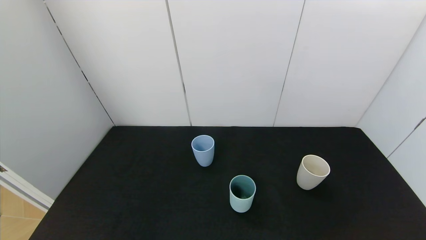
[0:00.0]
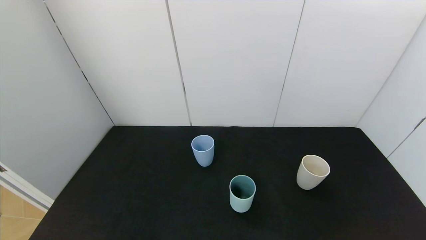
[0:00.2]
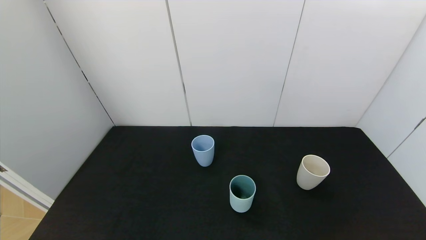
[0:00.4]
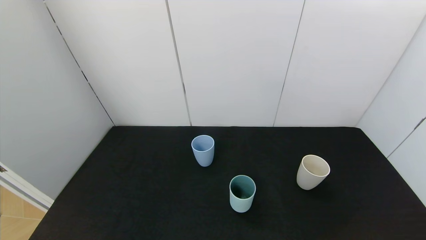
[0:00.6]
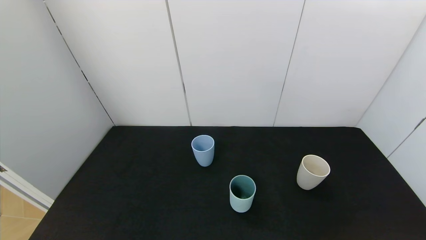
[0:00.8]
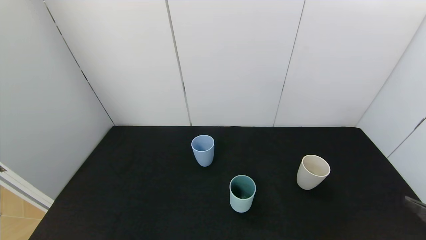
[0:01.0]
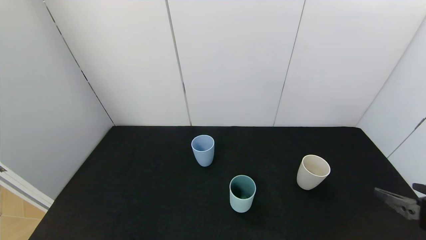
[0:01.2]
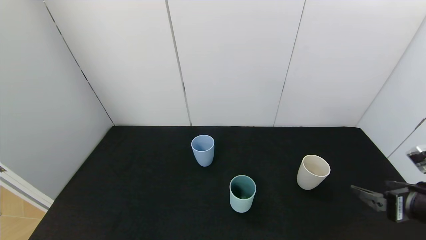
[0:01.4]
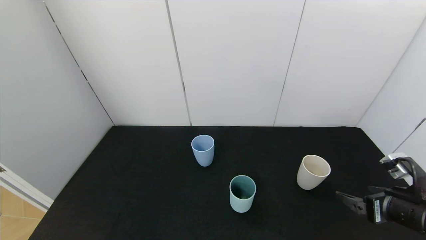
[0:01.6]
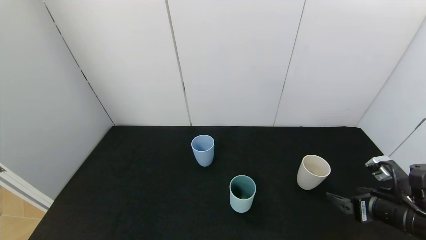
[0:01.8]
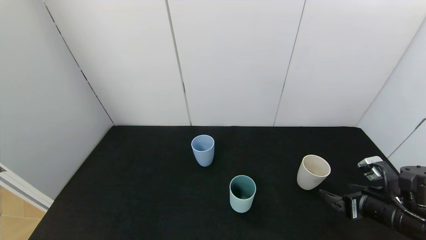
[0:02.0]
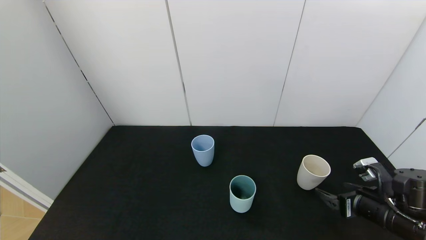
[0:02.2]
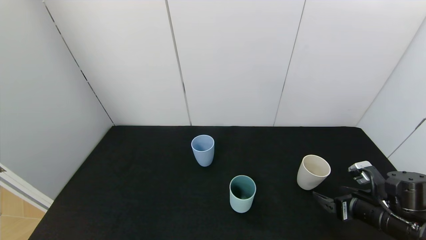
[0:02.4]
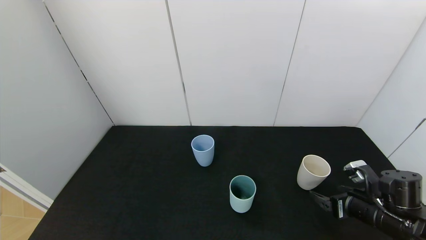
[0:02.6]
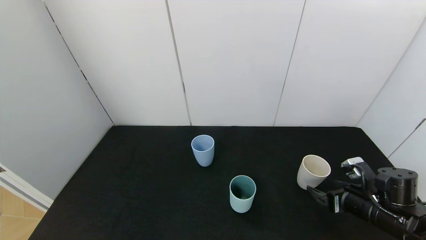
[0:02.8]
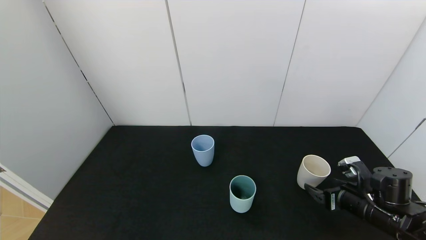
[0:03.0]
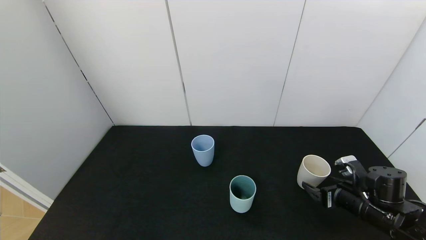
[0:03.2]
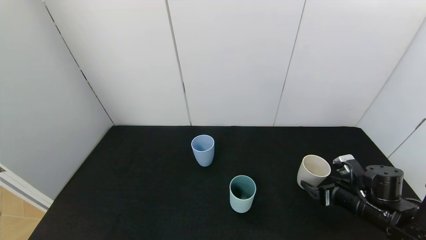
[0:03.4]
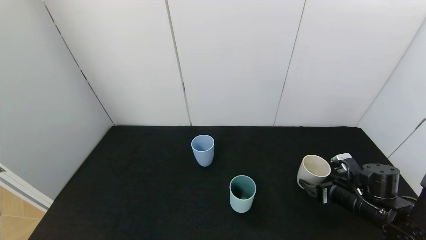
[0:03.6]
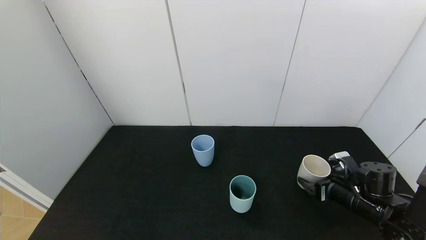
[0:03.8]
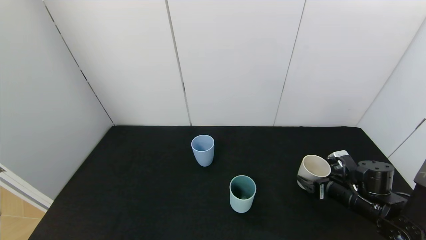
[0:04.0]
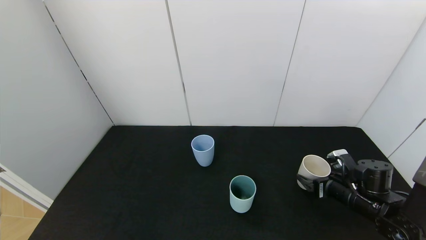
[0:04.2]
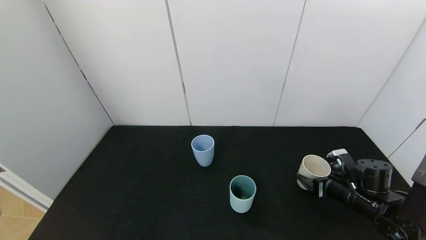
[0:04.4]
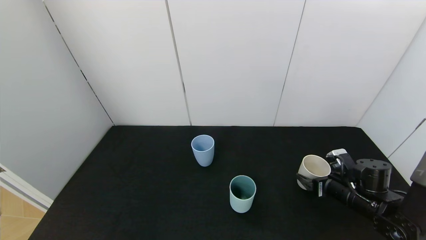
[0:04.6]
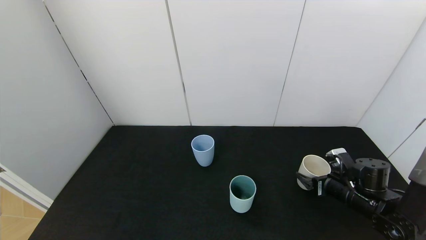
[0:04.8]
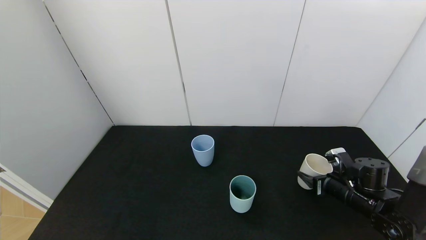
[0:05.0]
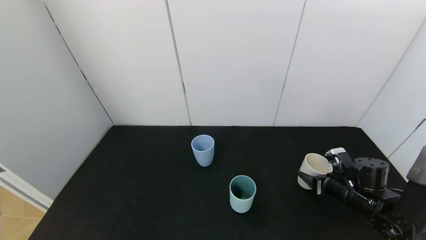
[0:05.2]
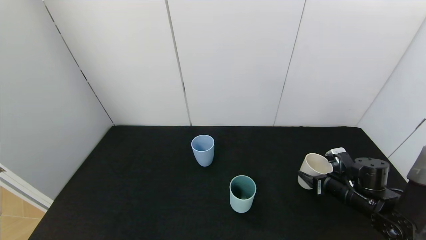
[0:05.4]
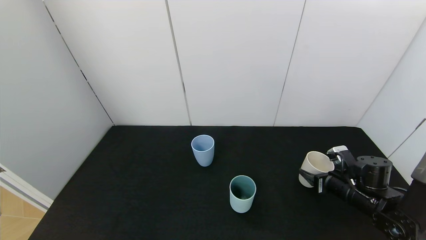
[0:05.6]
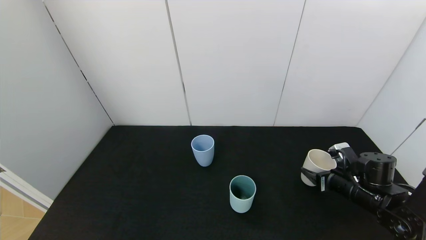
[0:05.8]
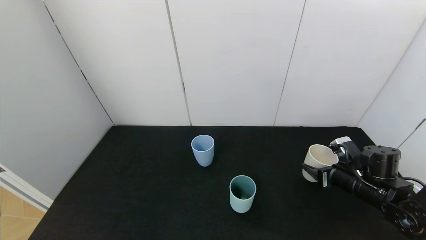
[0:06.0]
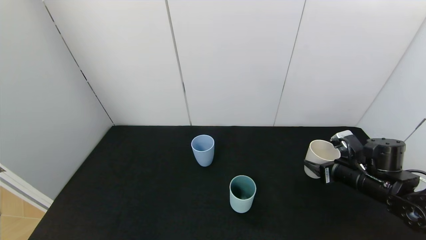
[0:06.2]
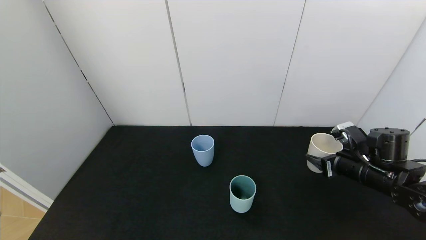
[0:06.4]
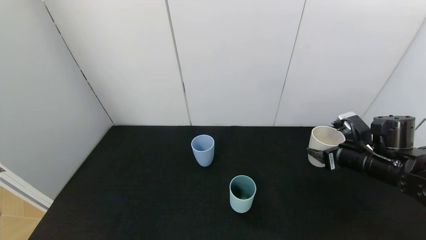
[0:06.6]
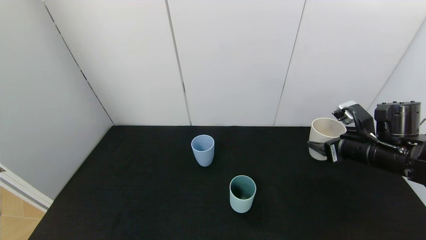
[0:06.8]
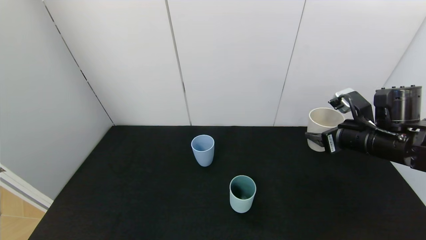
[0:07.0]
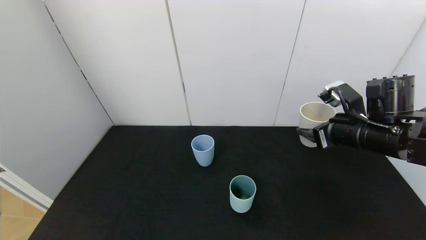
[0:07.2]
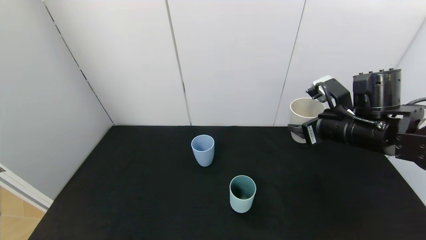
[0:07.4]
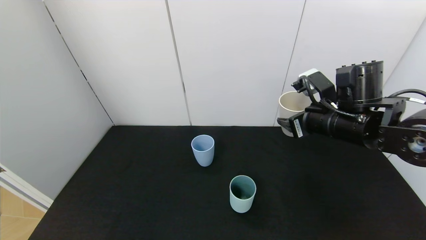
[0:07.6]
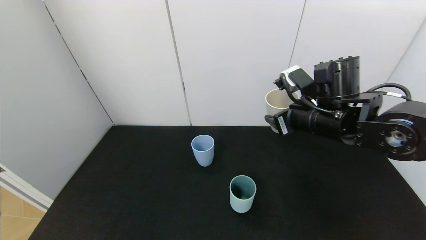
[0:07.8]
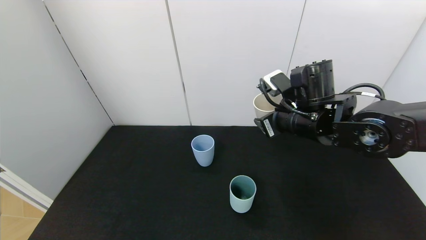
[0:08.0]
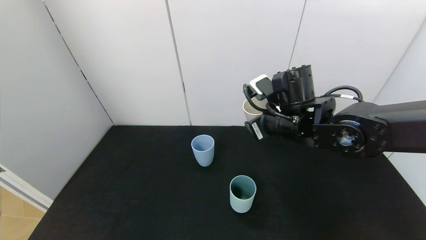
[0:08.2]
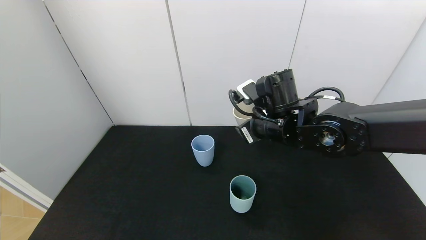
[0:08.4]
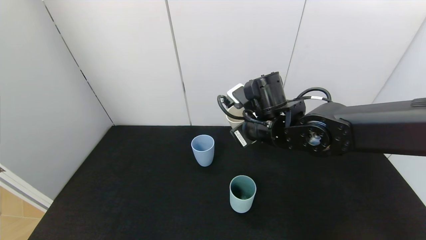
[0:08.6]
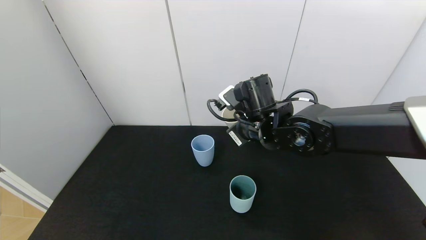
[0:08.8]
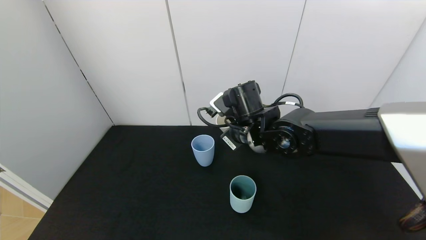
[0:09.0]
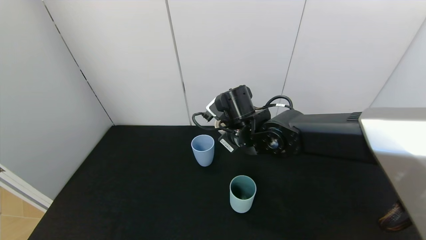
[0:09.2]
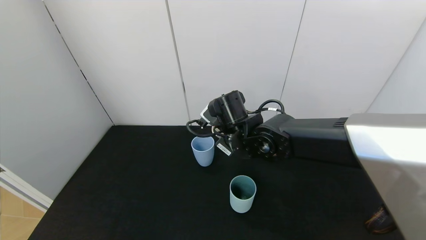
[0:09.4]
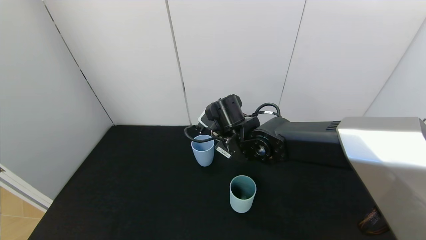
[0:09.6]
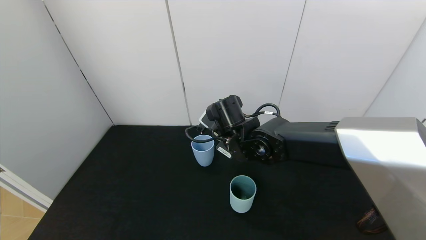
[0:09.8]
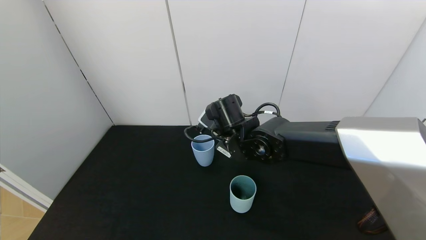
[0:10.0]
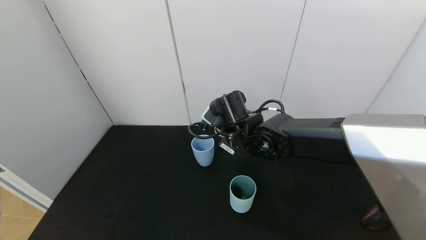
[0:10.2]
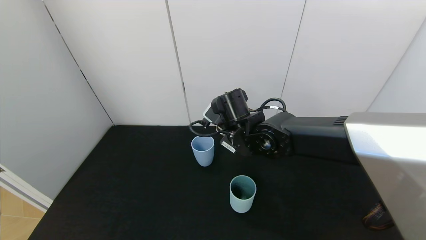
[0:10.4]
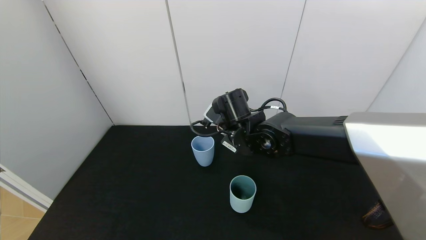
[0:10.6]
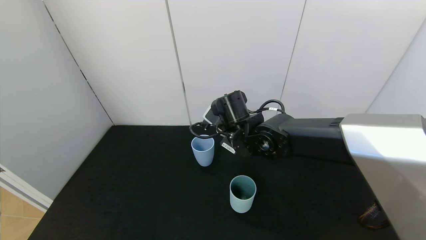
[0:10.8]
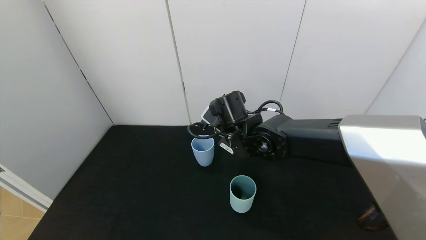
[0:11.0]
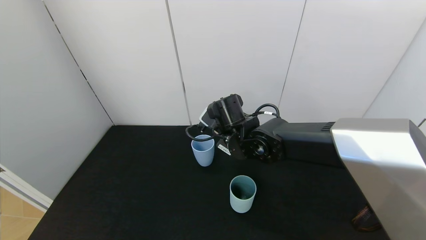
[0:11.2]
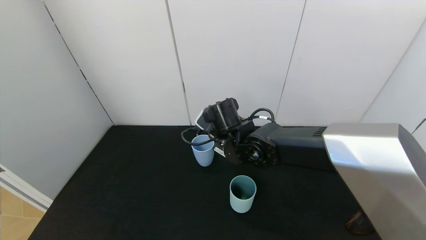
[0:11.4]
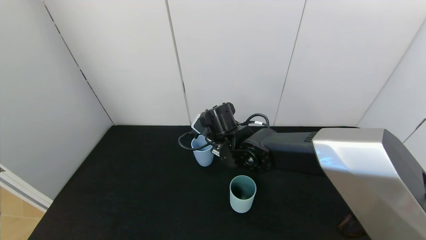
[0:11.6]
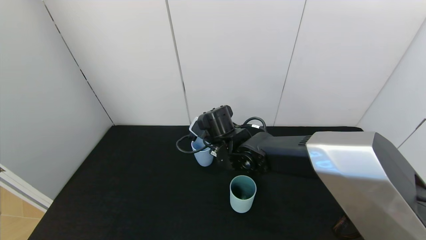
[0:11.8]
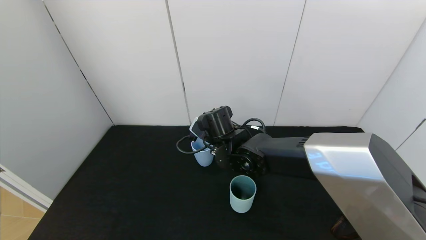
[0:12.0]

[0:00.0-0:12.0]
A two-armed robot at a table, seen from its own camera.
Task of the whole recording: use the gripper to pour the water into the other two cups on black table.
Step, 0:00.0 to 0:05.0: Grasp the white cup with the right gripper.
0:00.0 to 0:01.6: The right gripper shifts about 20 cm forward.
0:01.6 to 0:03.0: The right gripper travels downward and forward by roughly 10 cm.
0:03.0 to 0:04.4: The grippers stay close to where they were, moving slightly.
0:04.4 to 0:06.0: The right gripper closes its fingers.
0:06.0 to 0:07.6: The right gripper moves upward and to the left, some 20 cm.
0:07.6 to 0:09.0: The right gripper shifts some 15 cm to the left.
0:09.0 to 0:10.4: The grippers stay close to where they were, moving slightly.
0:10.4 to 0:12.0: The right gripper ends up some 5 cm from where it was.

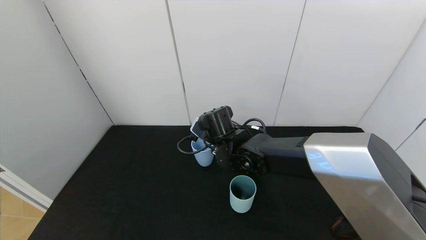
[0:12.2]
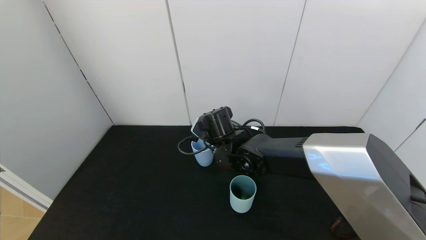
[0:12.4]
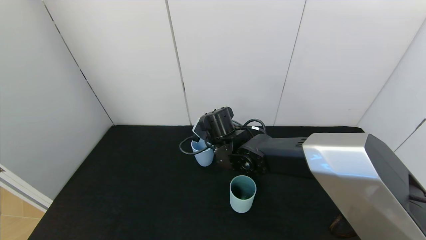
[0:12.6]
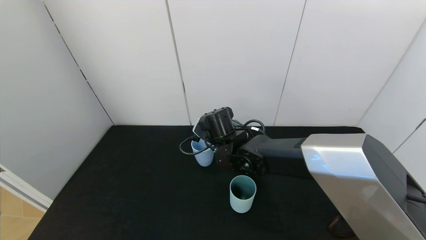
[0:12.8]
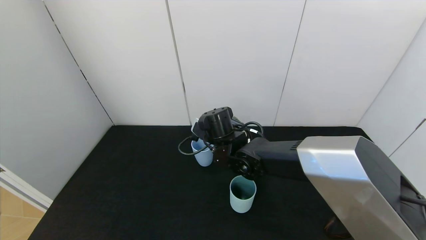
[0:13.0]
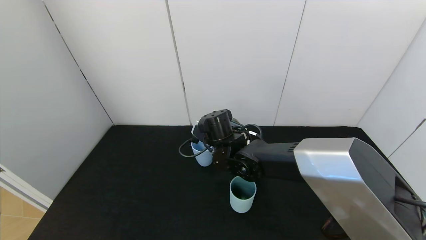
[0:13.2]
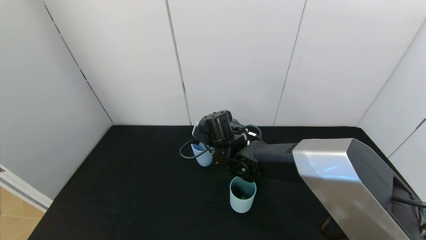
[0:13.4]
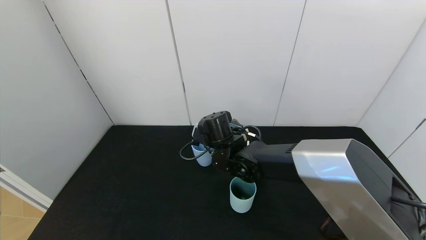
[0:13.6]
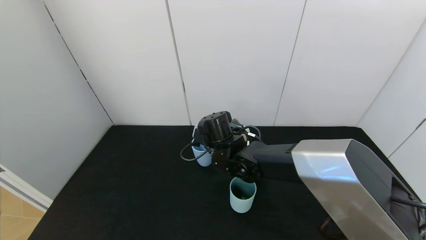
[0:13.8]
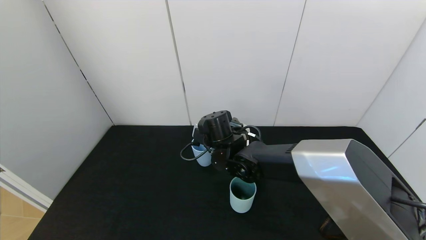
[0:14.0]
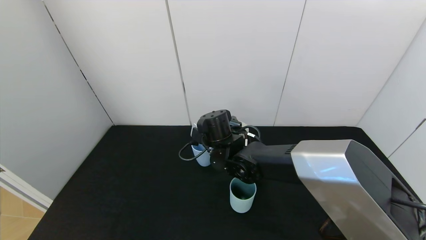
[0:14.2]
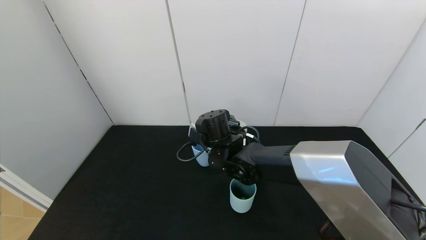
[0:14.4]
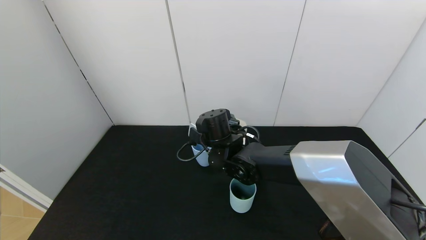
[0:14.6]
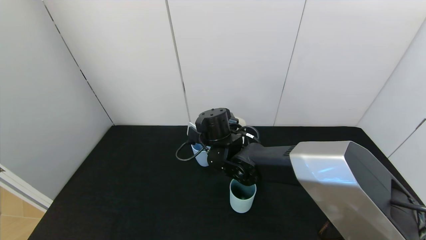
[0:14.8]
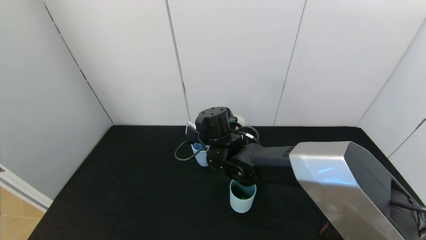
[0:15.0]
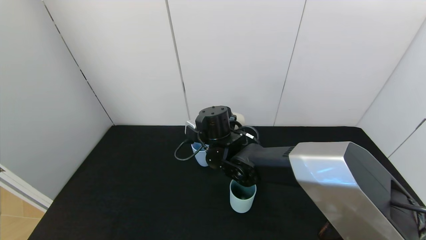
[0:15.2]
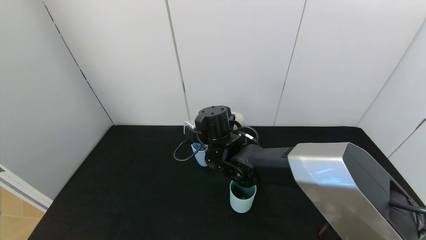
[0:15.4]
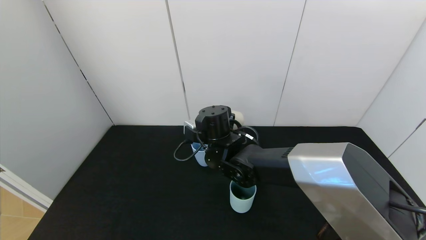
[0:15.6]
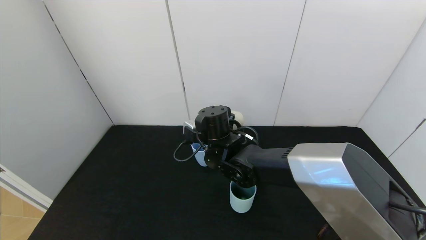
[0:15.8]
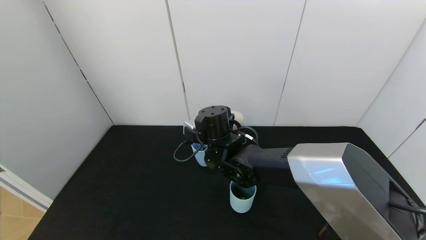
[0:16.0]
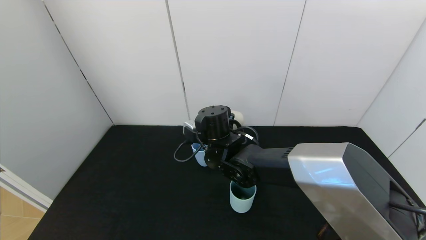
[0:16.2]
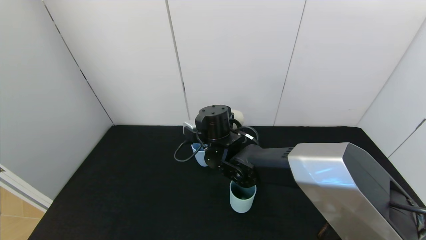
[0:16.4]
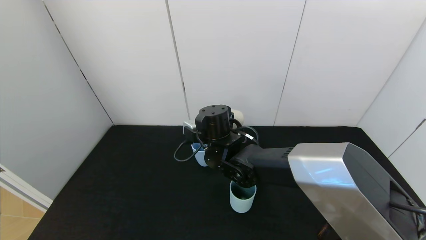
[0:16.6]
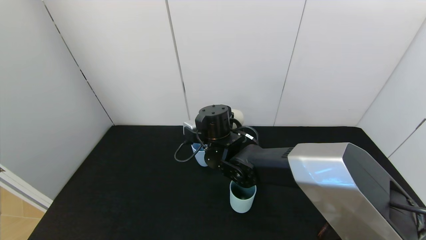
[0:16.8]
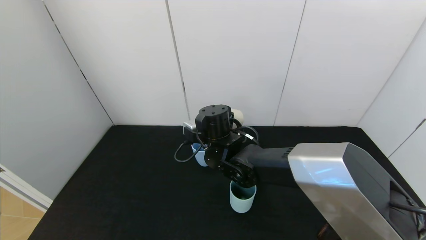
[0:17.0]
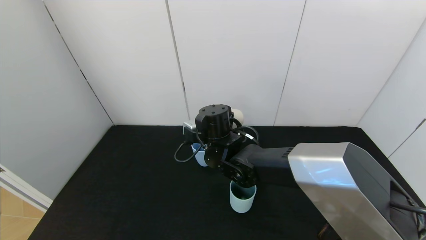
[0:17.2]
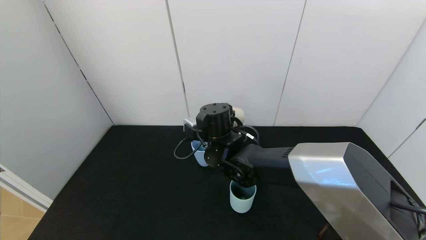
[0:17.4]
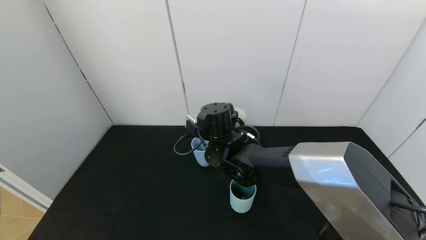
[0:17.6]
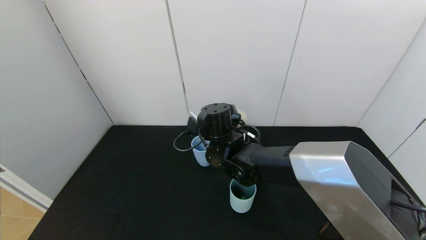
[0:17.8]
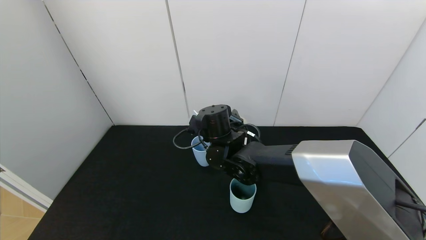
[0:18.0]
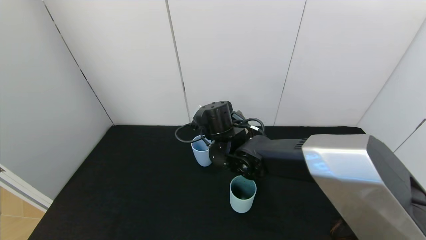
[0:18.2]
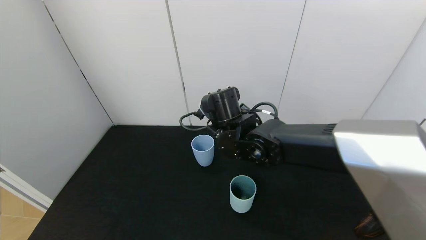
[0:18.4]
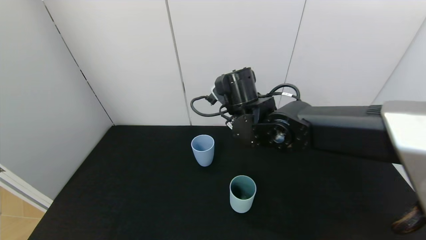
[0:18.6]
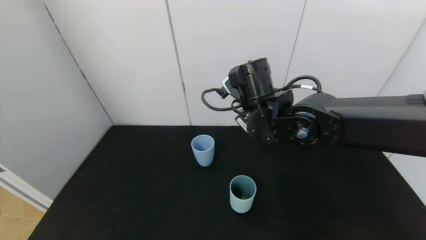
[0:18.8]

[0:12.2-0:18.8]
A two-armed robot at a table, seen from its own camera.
Task of the whole recording: use the gripper to pour the water into the other two cups on black table.
Step, 0:12.2 to 0:18.4: Pour water from white cup to blue cup with the right gripper.
0:12.2 to 0:13.8: The grippers stay close to where they were, moving slightly.
0:13.8 to 0:15.4: There are only small adjustments of the grippers.
0:15.4 to 0:17.2: The two grippers keep their place.
0:17.2 to 0:18.8: The right gripper moves upward and to the right, some 10 cm.
